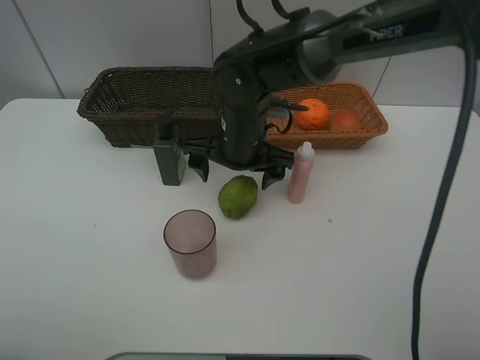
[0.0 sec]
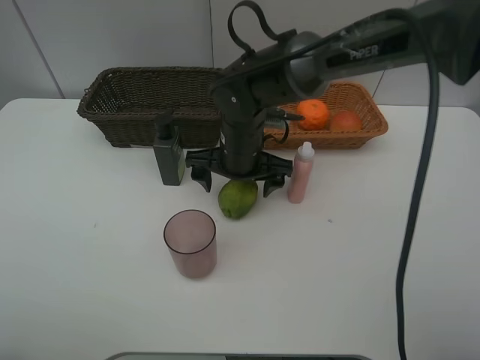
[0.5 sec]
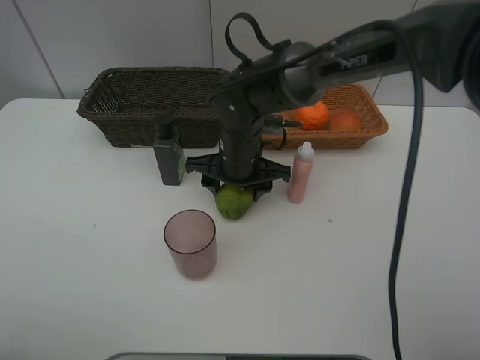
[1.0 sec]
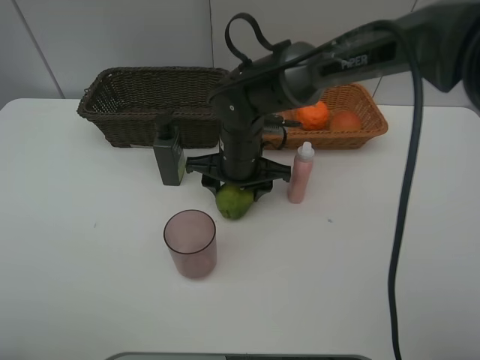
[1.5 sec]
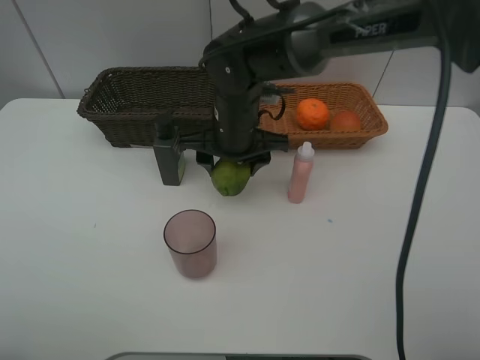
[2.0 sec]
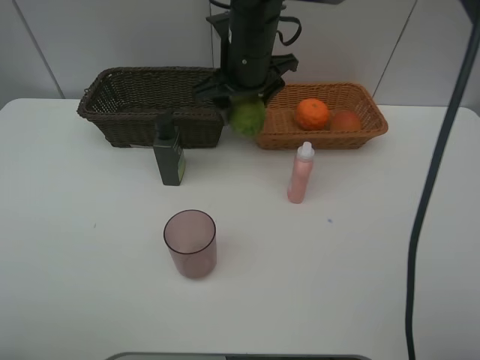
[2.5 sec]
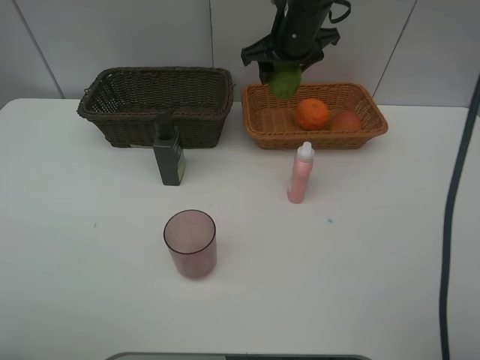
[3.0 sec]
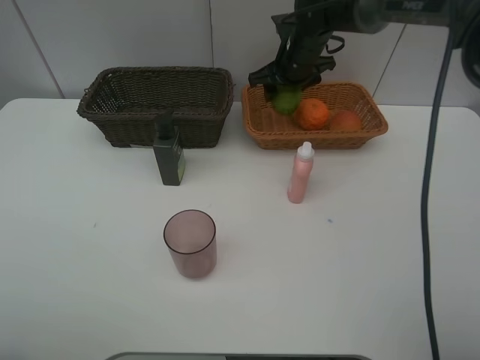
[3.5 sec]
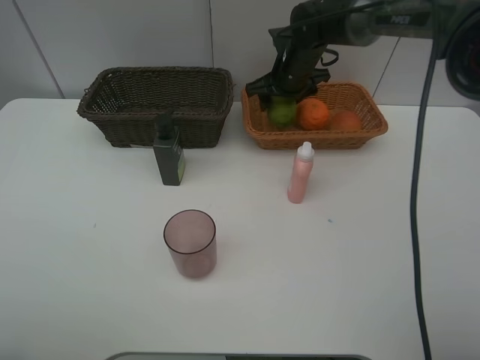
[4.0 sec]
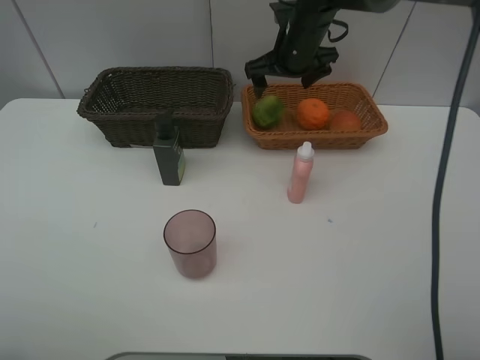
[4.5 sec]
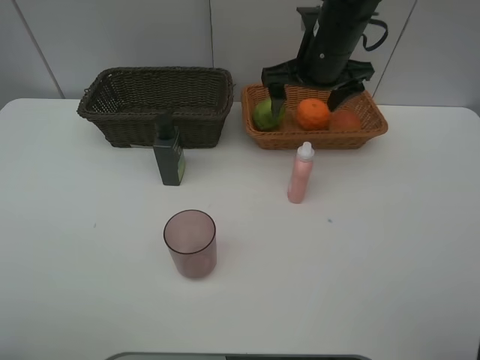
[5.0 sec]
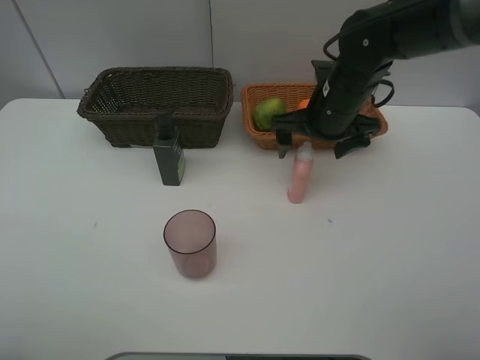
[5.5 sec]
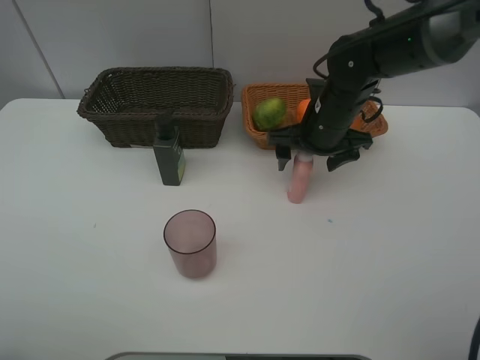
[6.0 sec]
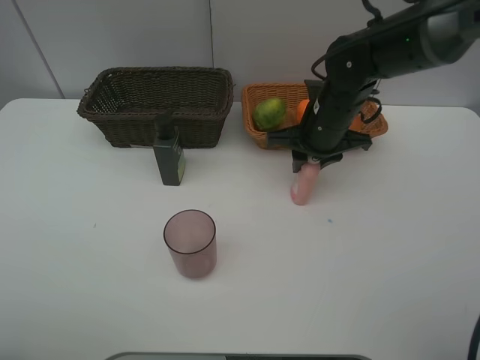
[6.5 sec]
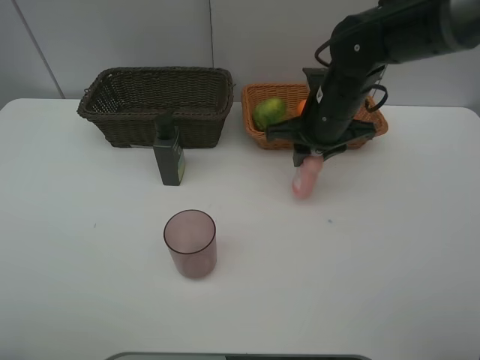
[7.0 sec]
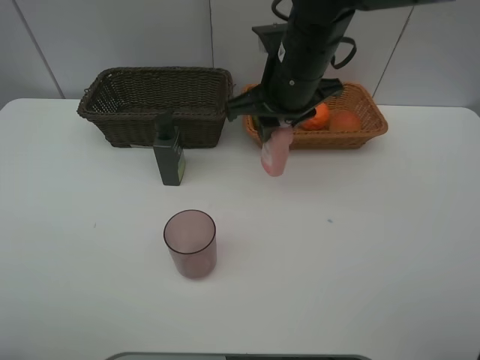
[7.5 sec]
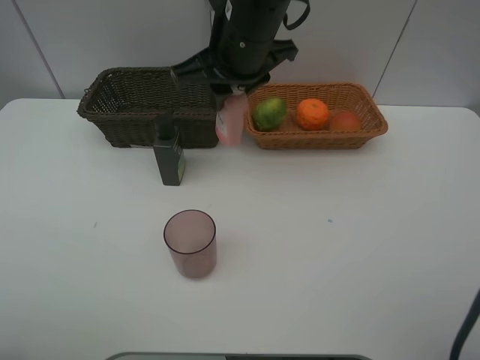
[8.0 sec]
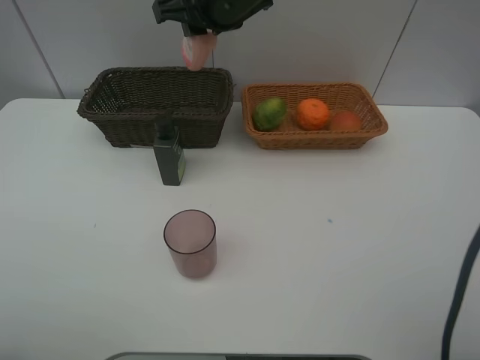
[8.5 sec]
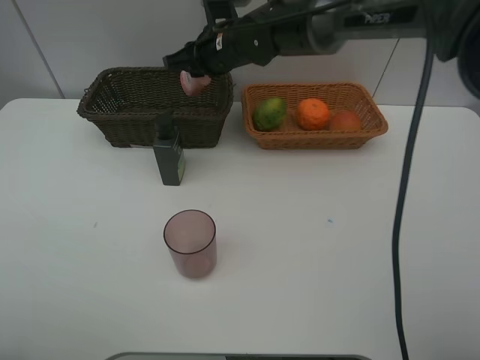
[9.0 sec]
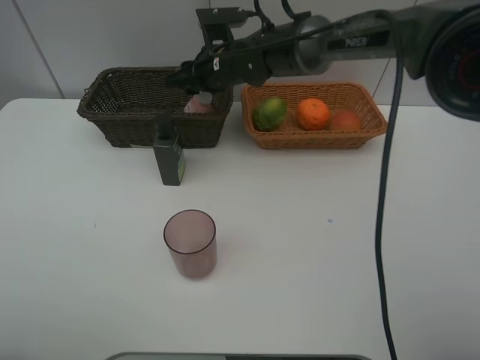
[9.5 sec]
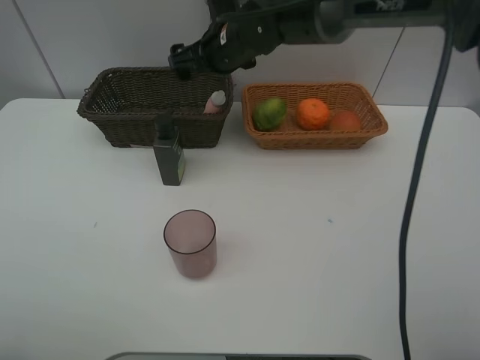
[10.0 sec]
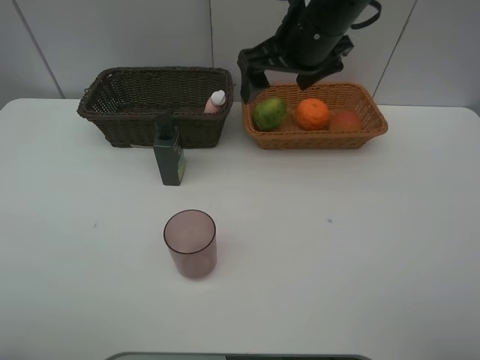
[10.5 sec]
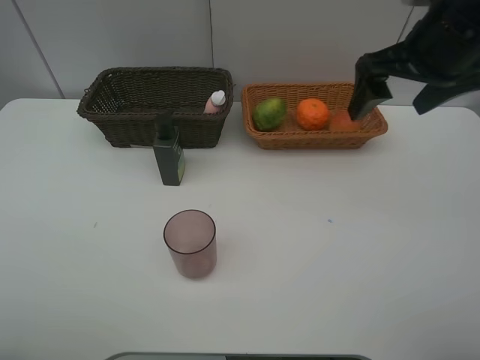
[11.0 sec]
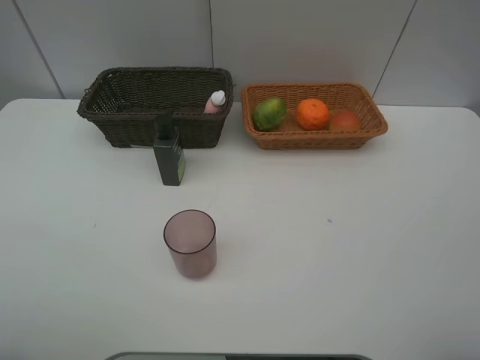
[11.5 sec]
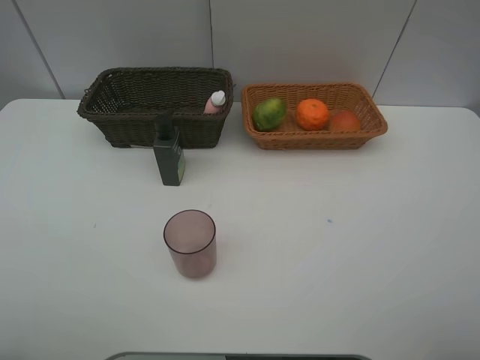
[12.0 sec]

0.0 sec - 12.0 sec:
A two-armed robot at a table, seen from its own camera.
Task of the whole recording: place multiple objects separately in different baskets.
0.0 sec - 2.0 sec: The right gripper closes up.
2.0 sec - 4.0 sec: The right gripper heads forward and to the right, covering approximately 20 cm.
4.0 sec - 6.0 sec: The right gripper travels backward by approximately 15 cm.
6.0 sec - 8.0 sec: The right gripper is displaced upward and to the left by roughly 20 cm, and closes.
8.0 sec - 10.0 sec: The right gripper shifts some 10 cm forward and downward, and opens its fingers.
10.0 sec - 12.0 sec: The right gripper goes about 50 cm backward and to the right.

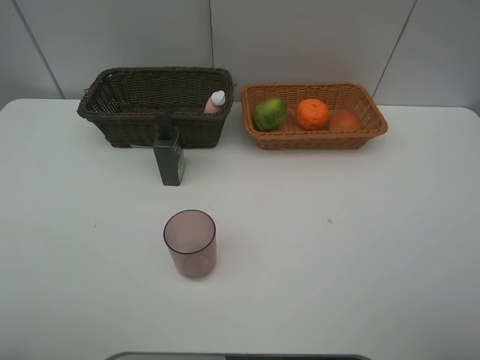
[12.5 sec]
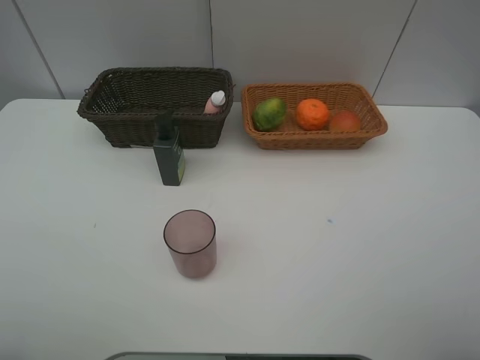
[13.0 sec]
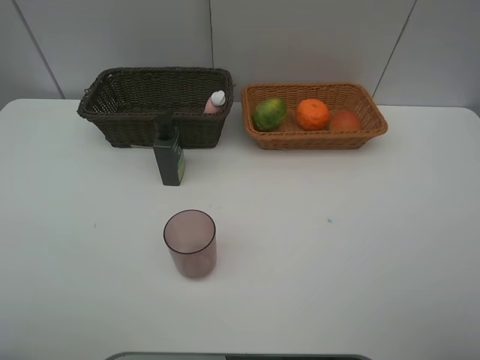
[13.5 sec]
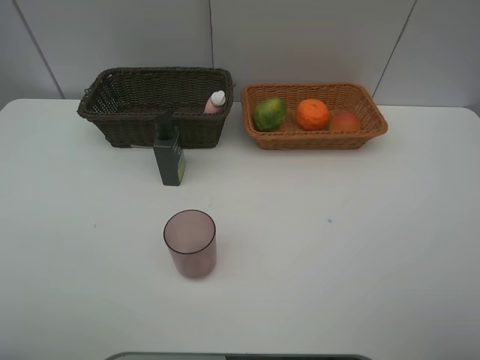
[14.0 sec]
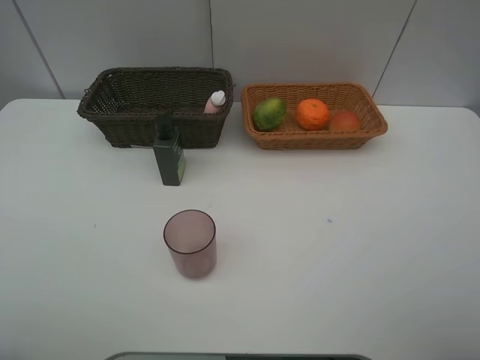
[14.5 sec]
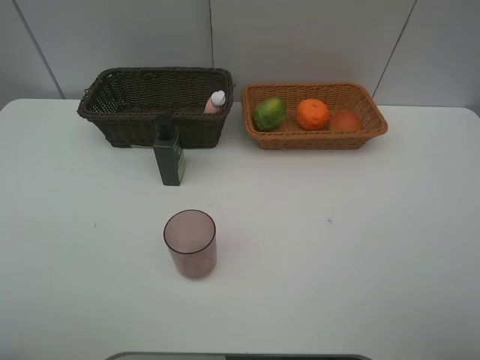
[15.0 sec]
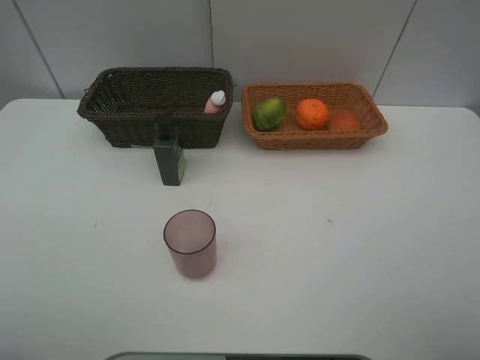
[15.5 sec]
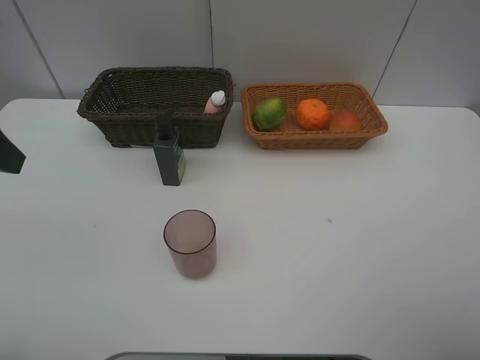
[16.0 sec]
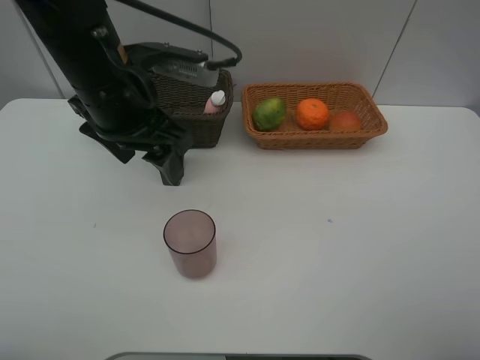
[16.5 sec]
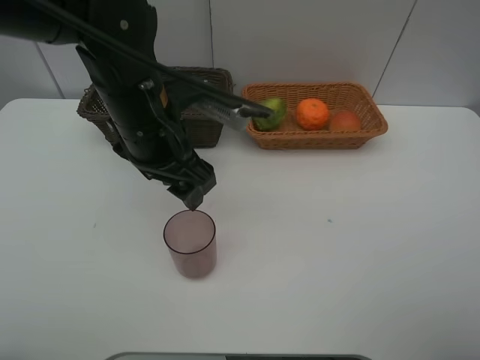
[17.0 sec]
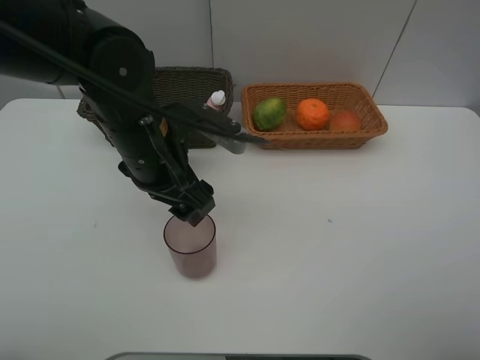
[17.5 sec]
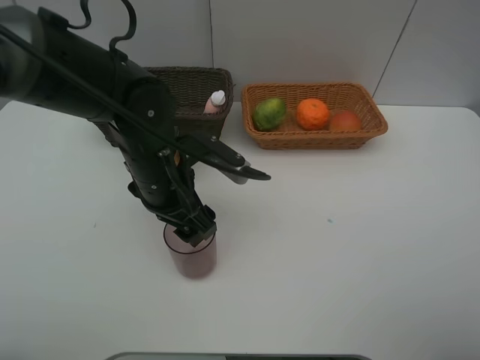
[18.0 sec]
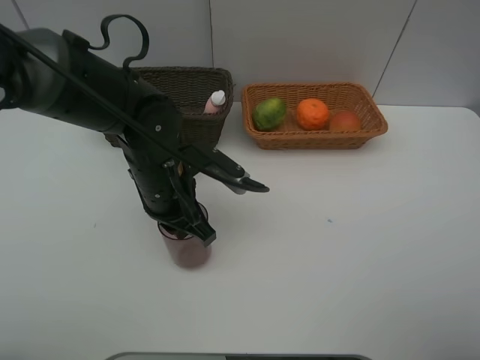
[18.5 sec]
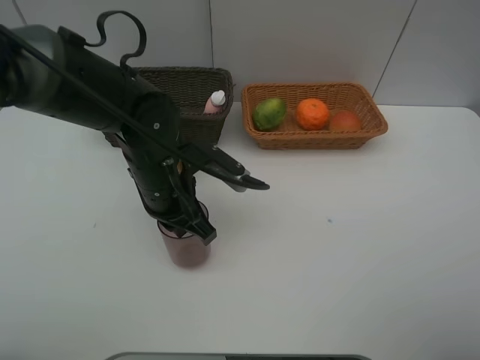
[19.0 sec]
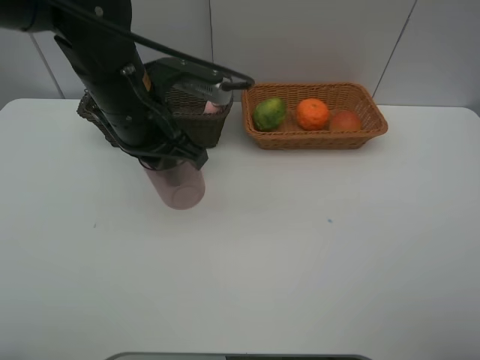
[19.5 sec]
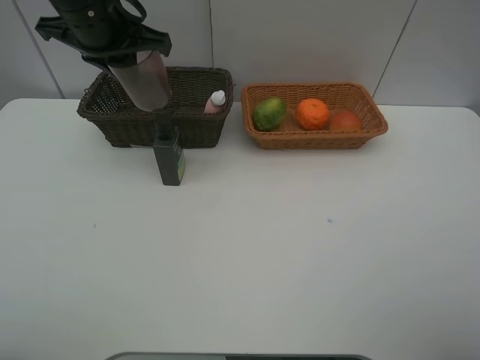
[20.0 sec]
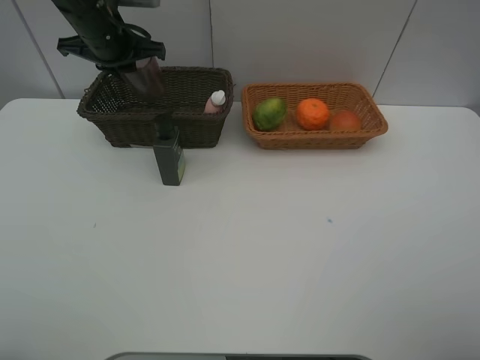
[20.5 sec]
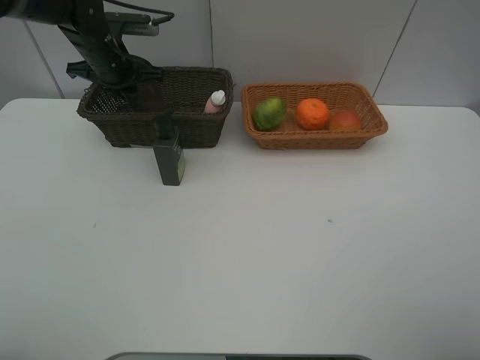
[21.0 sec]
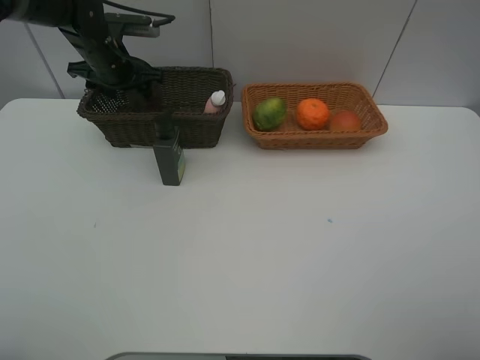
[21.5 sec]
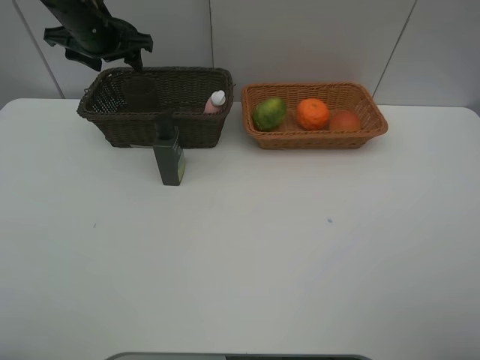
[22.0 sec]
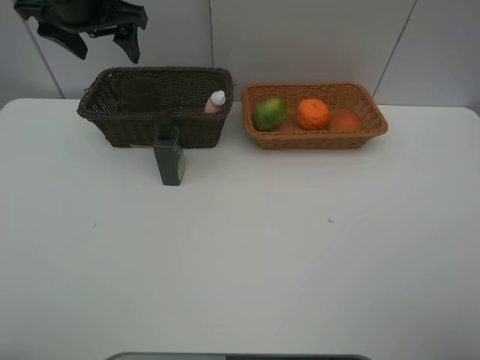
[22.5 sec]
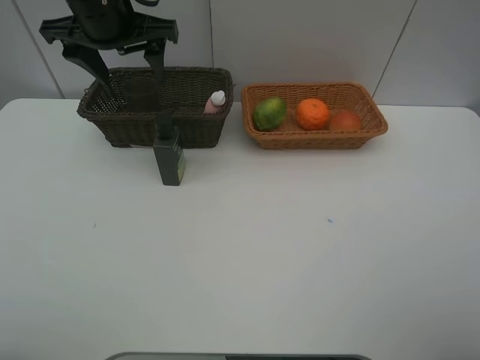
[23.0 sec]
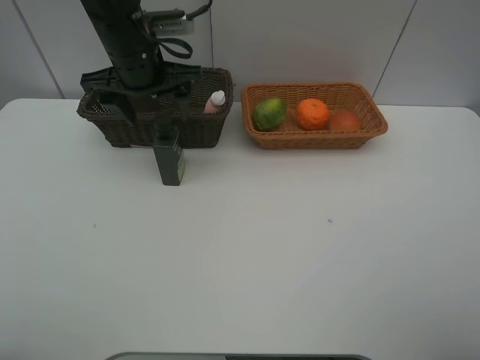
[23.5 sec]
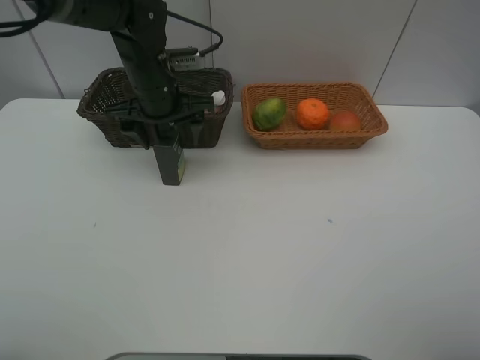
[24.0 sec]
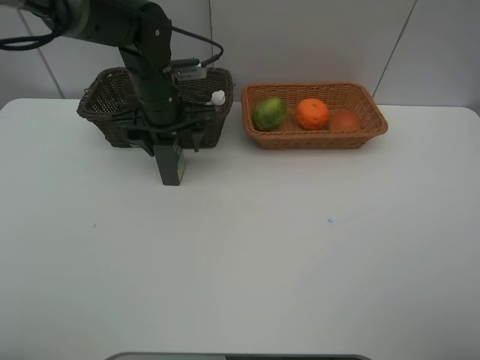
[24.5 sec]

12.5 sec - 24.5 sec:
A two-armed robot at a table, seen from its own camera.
Task of the whole recording: place multiple objects separately in different baskets.
14.5 sec - 16.5 sec: The left gripper heads forward and to the right, covering about 30 cm.
16.5 sec - 18.5 sec: The left gripper is displaced downward by roughly 10 cm, and closes its fingers.
18.5 sec - 20.5 sec: The left gripper heads forward, to the left and upward, covering about 25 cm.
20.5 sec - 22.5 sec: The left gripper goes about 10 cm upward and backward, and opens its fingers.
22.5 sec - 24.5 sec: The left gripper shifts about 15 cm downward and to the right.

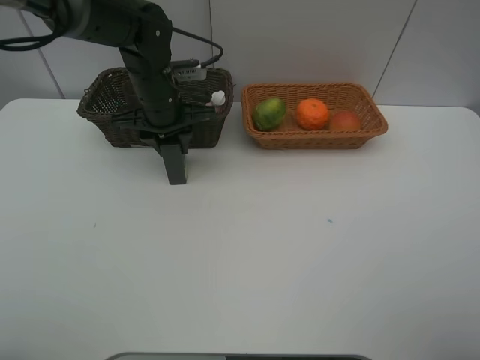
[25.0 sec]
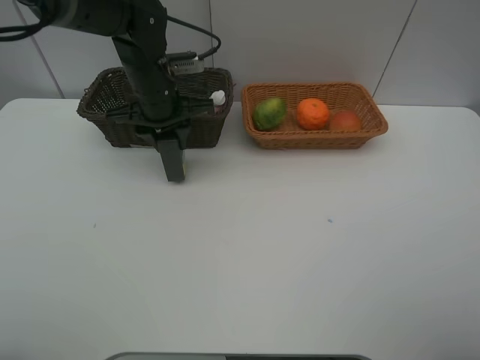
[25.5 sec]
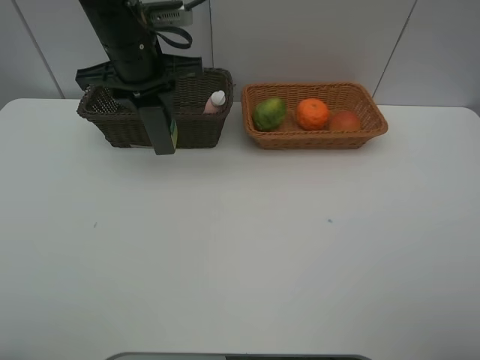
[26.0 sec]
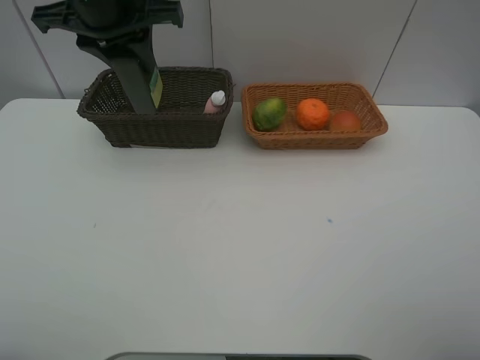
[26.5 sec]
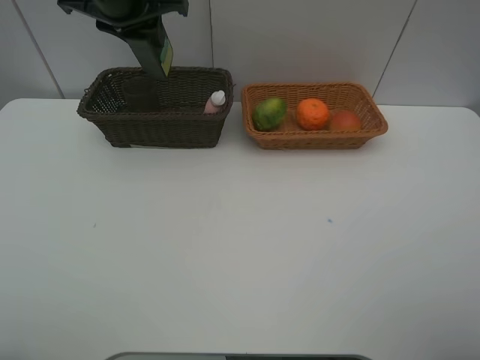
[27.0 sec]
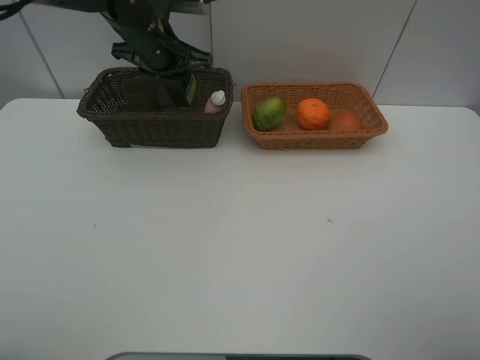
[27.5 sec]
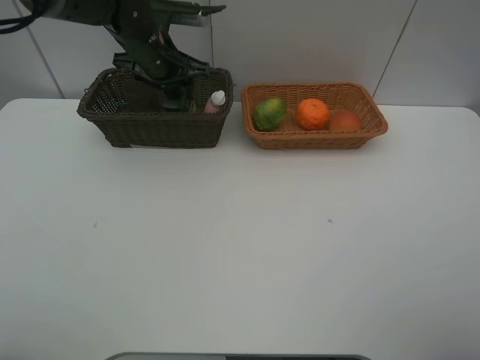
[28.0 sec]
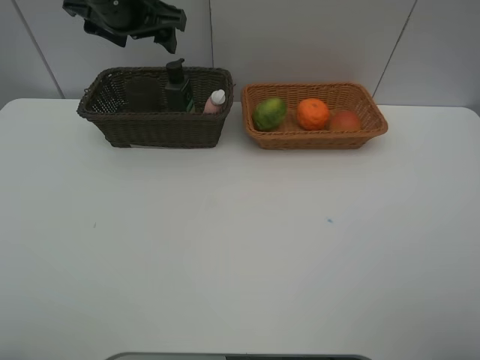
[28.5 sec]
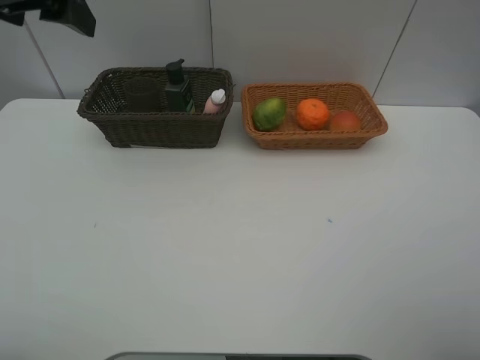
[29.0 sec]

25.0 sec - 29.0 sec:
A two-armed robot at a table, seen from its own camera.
Task of the whole recording: place multiple objects separately in different baskets.
25.0 sec - 27.0 sec: The left gripper shifts approximately 15 cm upward.
27.0 sec - 29.0 sec: The left gripper is displaced backward, to the left and upward by approximately 20 cm, and opens.
